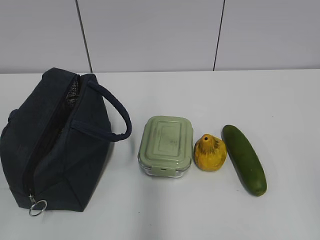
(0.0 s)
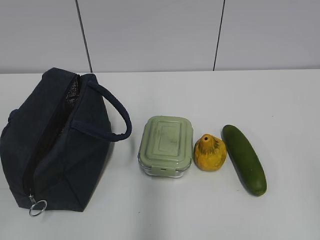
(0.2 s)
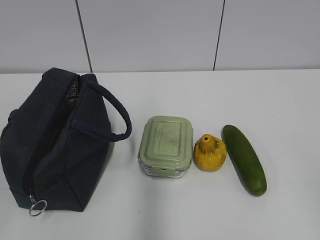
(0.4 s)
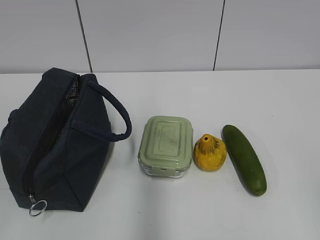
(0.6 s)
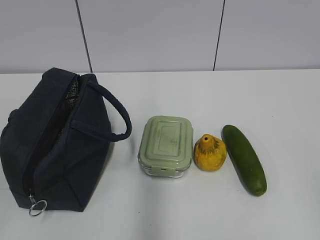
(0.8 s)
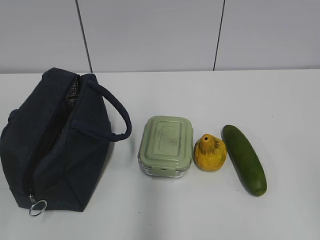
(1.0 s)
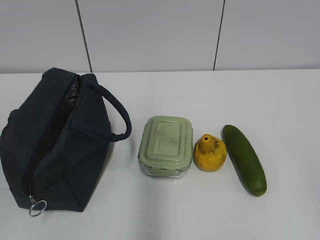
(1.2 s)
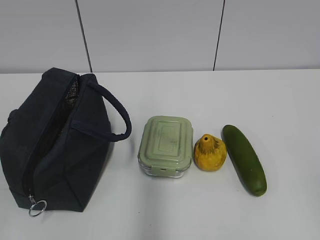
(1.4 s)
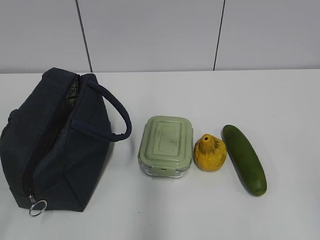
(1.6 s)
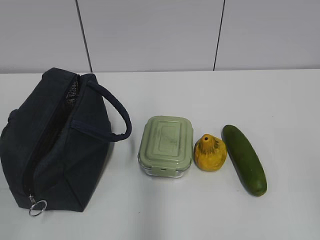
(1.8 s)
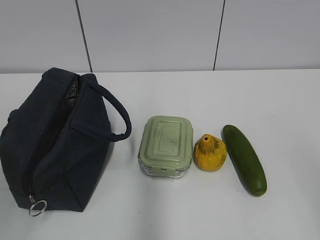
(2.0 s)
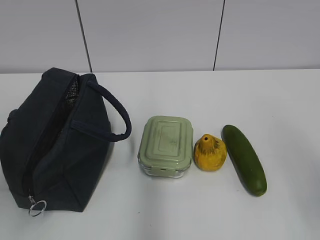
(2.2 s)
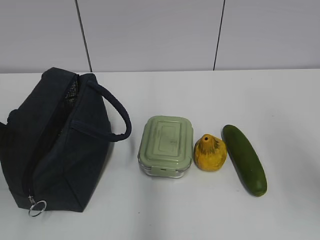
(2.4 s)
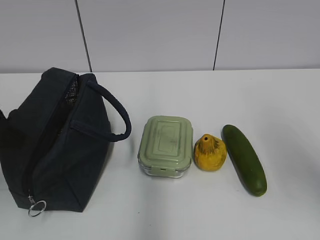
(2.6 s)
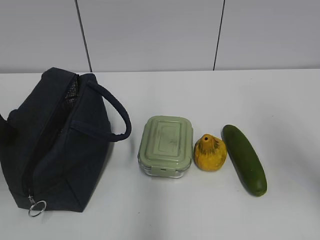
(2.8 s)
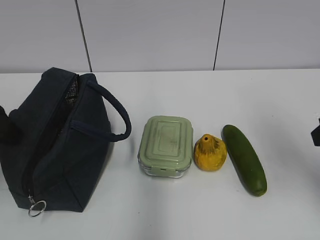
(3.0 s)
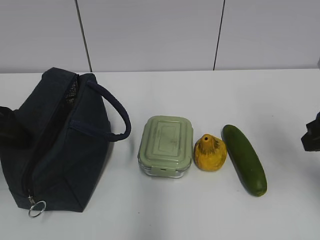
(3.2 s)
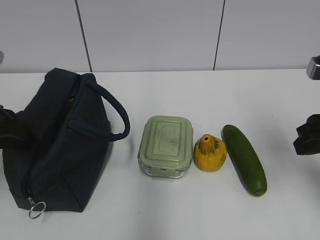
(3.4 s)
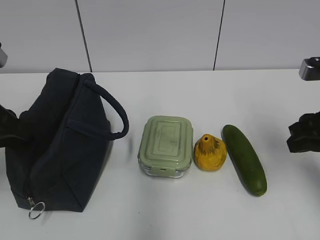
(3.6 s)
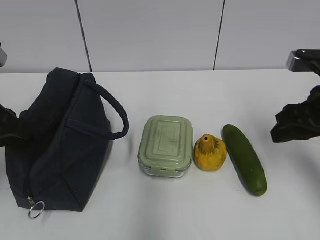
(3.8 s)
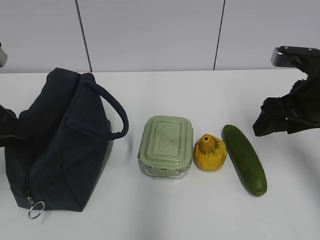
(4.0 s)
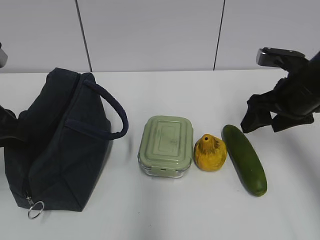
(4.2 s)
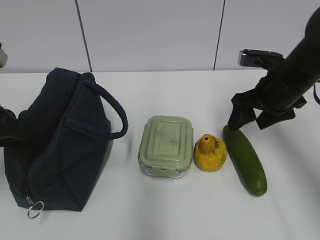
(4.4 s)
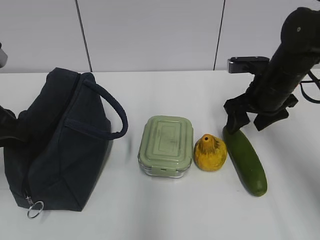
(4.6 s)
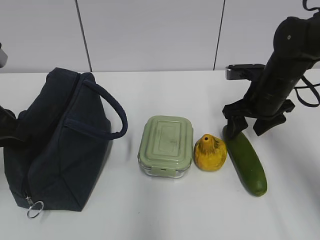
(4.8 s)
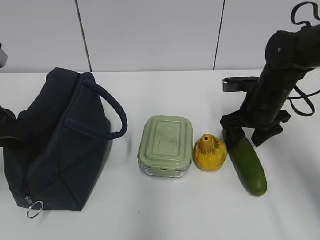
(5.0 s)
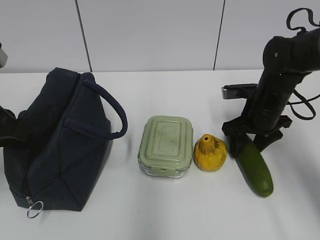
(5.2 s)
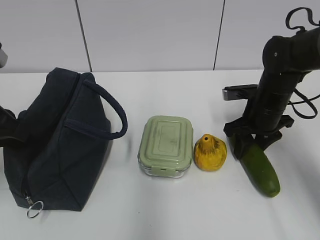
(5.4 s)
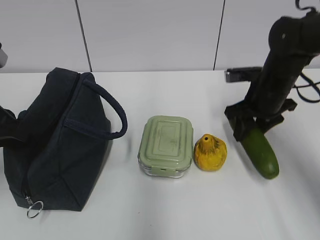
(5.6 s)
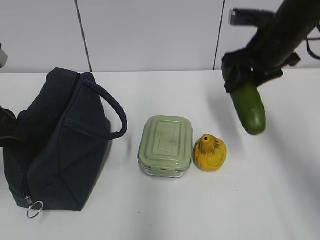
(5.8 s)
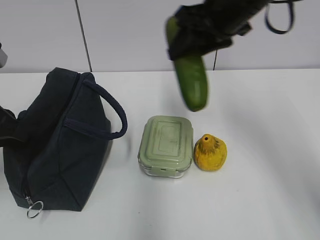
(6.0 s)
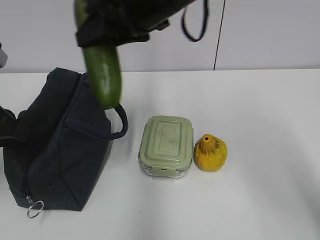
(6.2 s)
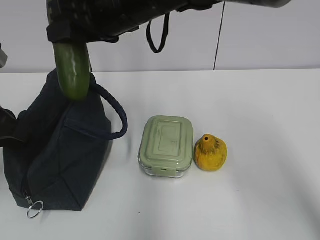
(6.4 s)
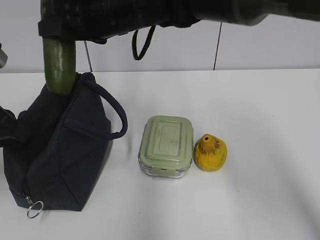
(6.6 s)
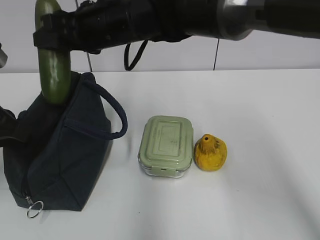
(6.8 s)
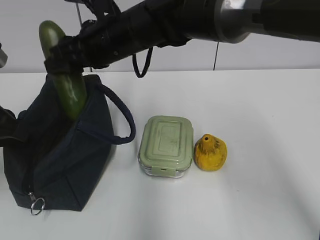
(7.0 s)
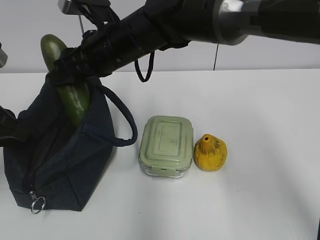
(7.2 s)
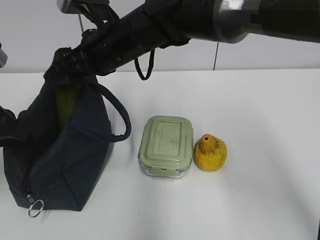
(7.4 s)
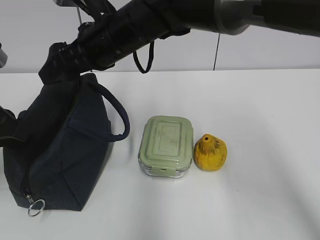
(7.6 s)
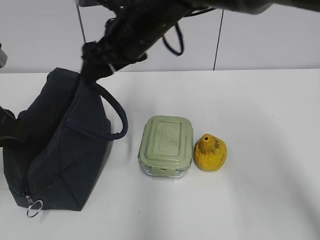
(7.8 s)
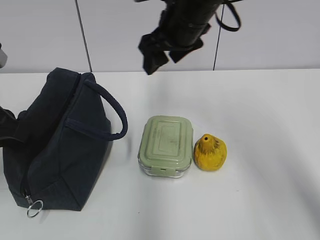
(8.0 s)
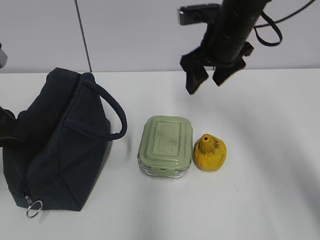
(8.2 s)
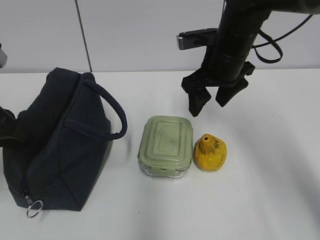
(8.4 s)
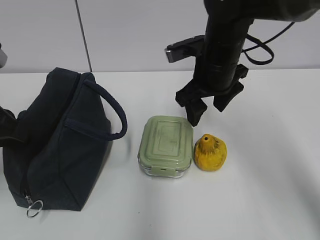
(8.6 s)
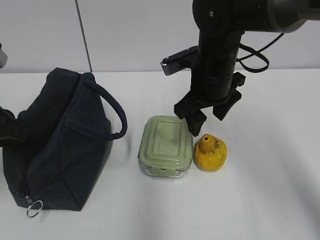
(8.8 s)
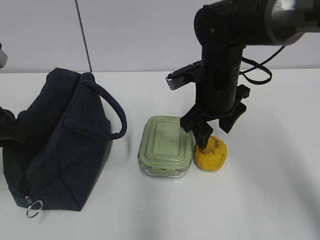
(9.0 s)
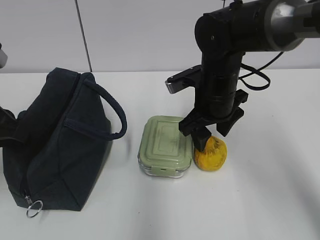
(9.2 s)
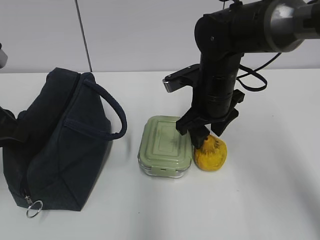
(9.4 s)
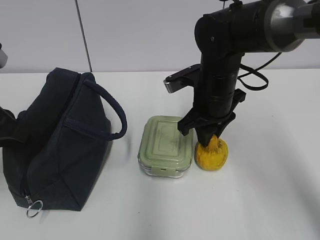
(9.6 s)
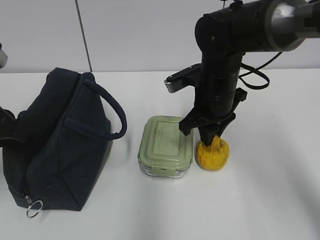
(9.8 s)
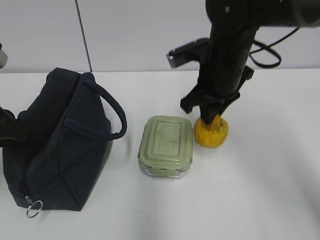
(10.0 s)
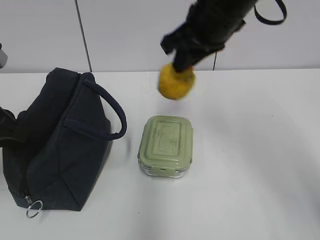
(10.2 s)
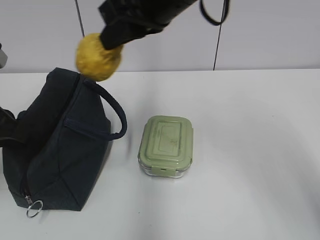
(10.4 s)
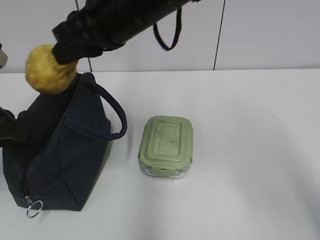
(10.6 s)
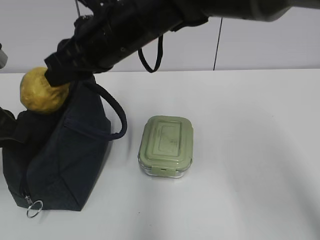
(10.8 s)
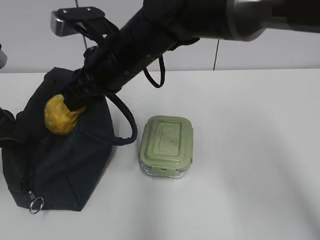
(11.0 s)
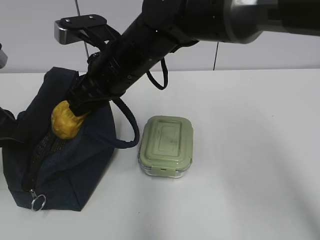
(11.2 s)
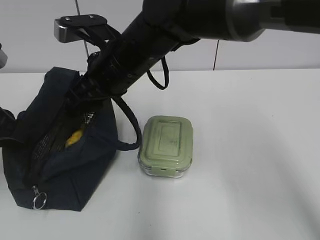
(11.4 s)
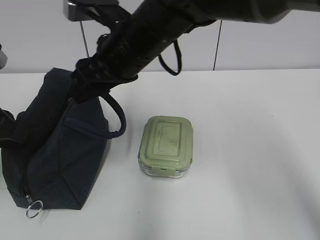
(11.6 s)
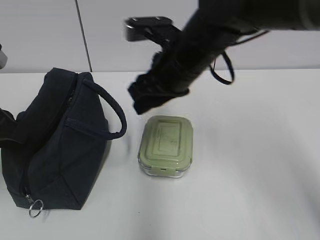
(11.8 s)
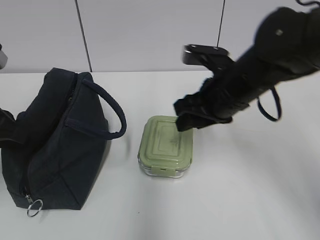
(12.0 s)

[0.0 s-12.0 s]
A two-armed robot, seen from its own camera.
Step, 0.0 to 5.2 s: Grab the cucumber with your right hand.
Step, 7.0 to 7.4 s: Place it into the bag with your right hand.
Step, 7.6 to 9.6 s: Grab the pear with your right hand.
Step, 9.8 to 11.4 s: Place it into the bag with your right hand.
1.6 to 3.0 s: Both grippers move forward, about 20 cm.
3.0 to 4.4 s: The left gripper closes its fingers. The right gripper moves forward and downward, some 15 cm, and opens up.
4.4 to 6.0 s: The right gripper travels upward and to the left by roughly 20 cm, and closes up.
6.0 to 7.6 s: The right gripper goes approximately 15 cm to the left and downward, and opens its fingers.
7.6 to 9.0 s: The right gripper heads to the right and downward, covering roughly 15 cm.
9.0 to 10.4 s: The right gripper is displaced upward and to the left by roughly 20 cm, and closes.
10.4 to 12.0 s: The right gripper shifts about 20 cm downward and to the right, and opens up.

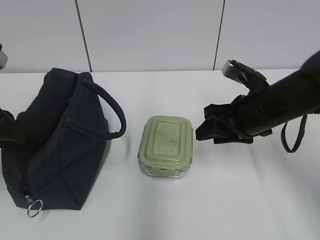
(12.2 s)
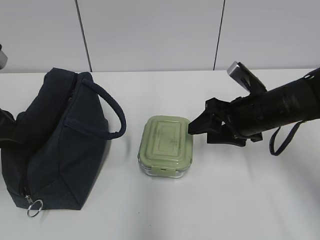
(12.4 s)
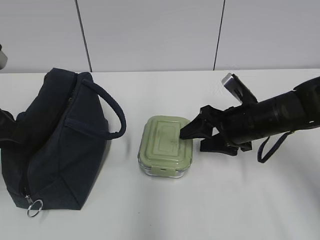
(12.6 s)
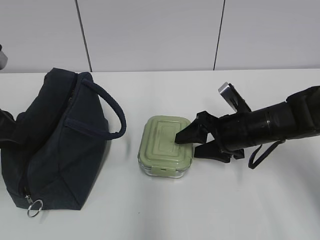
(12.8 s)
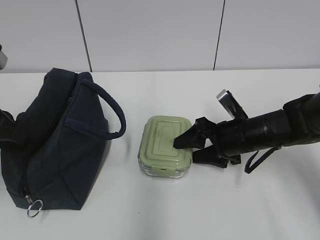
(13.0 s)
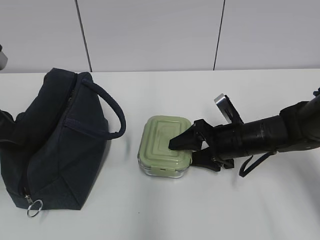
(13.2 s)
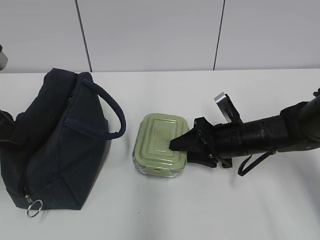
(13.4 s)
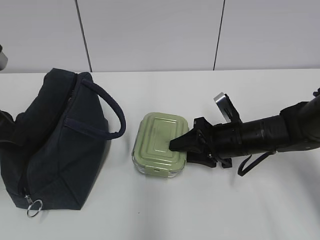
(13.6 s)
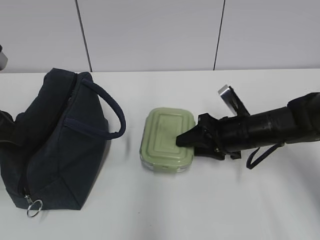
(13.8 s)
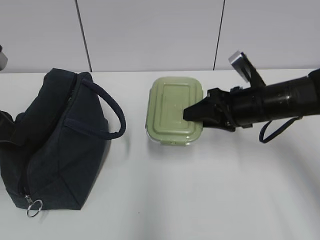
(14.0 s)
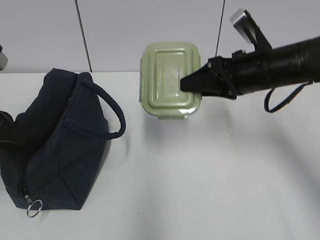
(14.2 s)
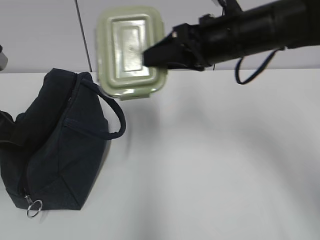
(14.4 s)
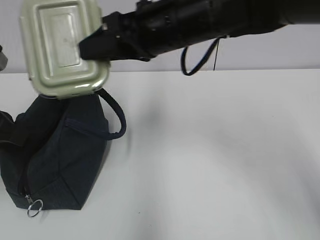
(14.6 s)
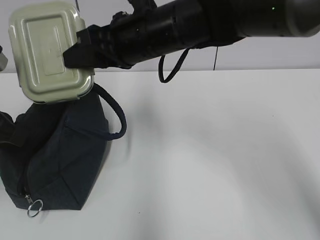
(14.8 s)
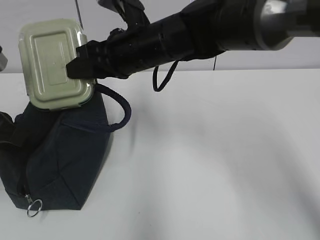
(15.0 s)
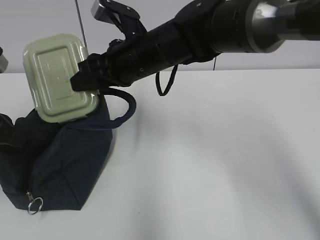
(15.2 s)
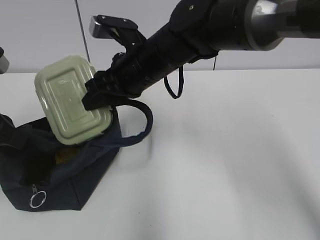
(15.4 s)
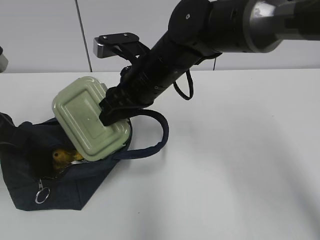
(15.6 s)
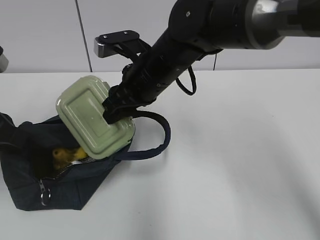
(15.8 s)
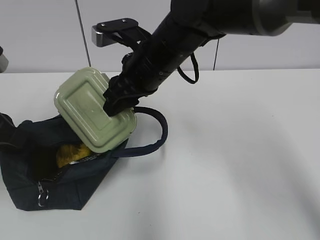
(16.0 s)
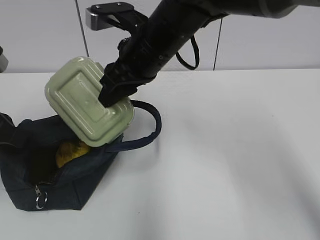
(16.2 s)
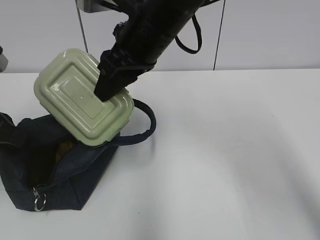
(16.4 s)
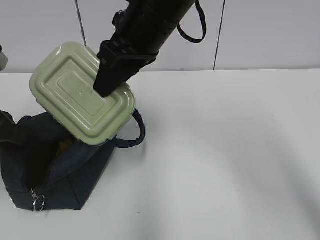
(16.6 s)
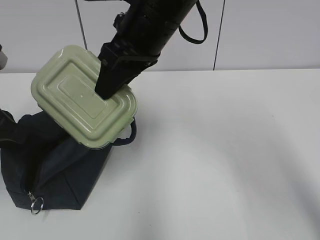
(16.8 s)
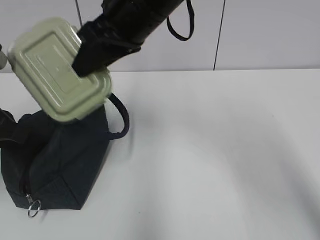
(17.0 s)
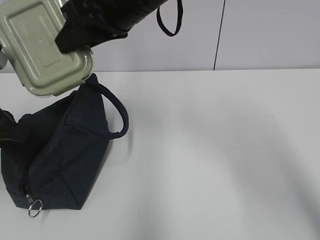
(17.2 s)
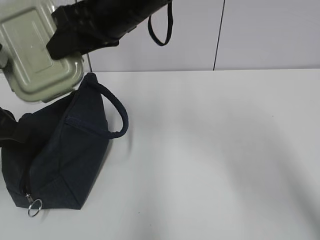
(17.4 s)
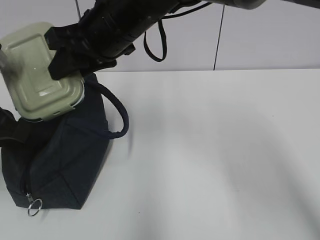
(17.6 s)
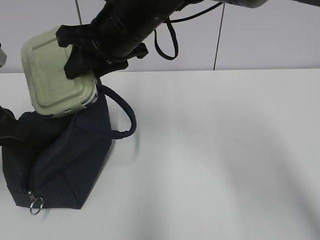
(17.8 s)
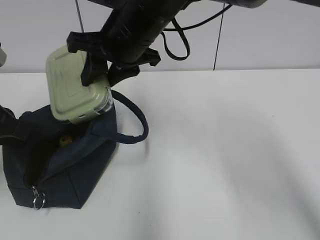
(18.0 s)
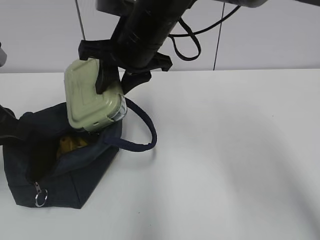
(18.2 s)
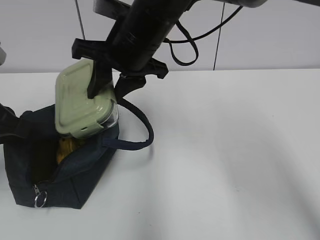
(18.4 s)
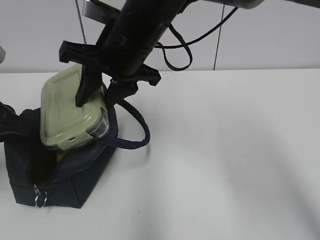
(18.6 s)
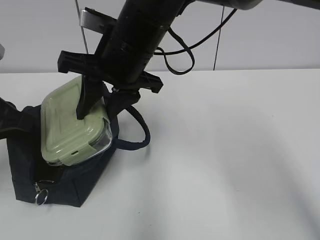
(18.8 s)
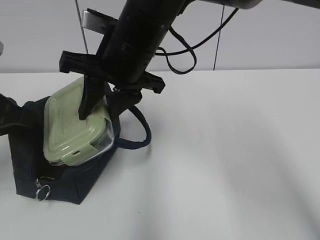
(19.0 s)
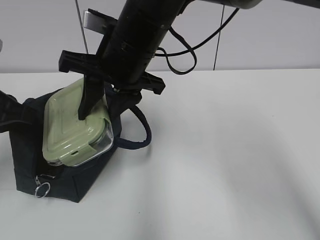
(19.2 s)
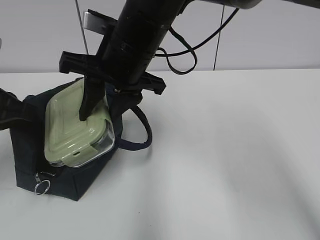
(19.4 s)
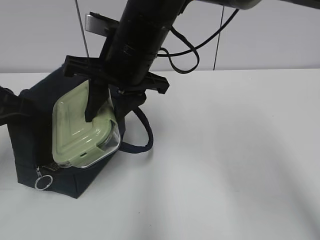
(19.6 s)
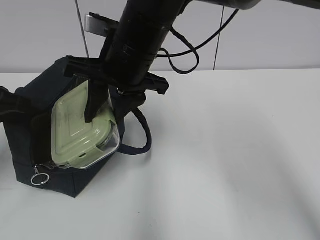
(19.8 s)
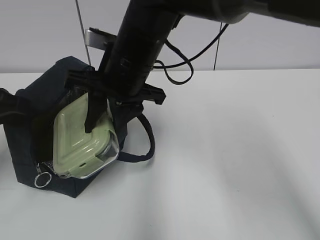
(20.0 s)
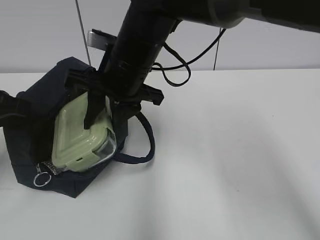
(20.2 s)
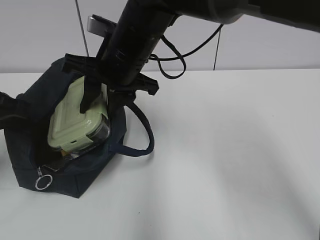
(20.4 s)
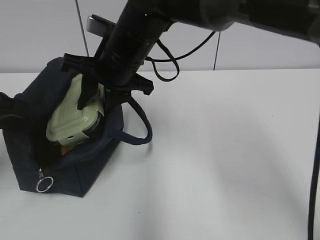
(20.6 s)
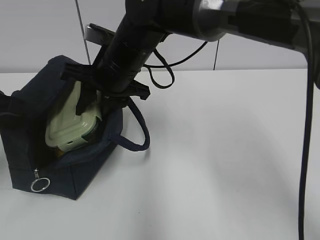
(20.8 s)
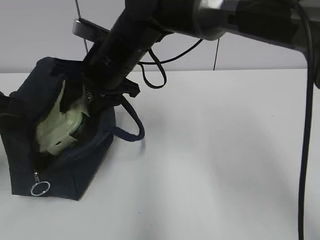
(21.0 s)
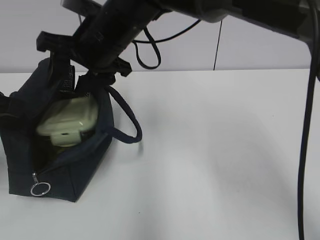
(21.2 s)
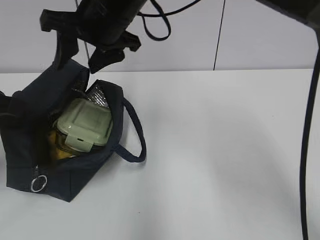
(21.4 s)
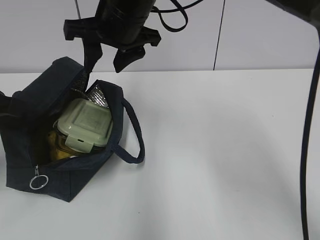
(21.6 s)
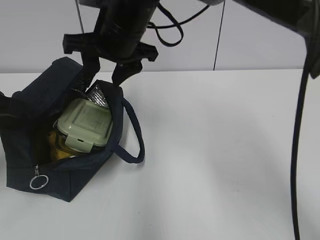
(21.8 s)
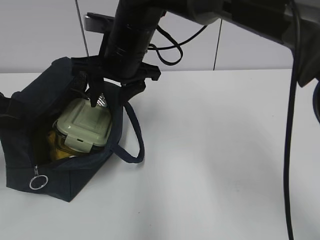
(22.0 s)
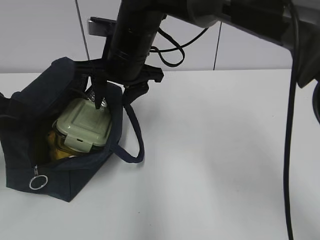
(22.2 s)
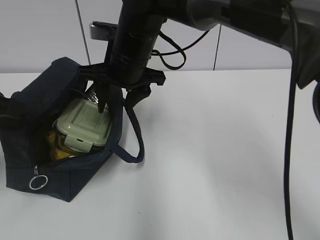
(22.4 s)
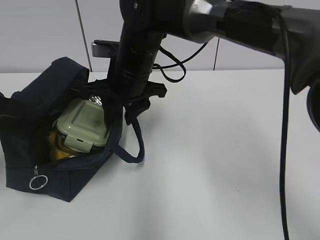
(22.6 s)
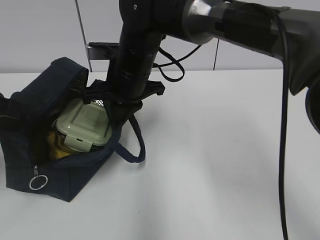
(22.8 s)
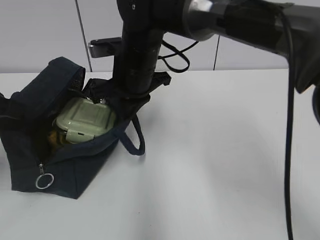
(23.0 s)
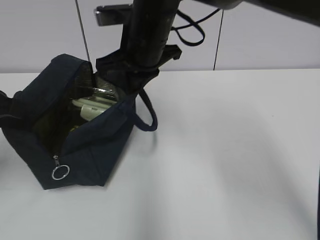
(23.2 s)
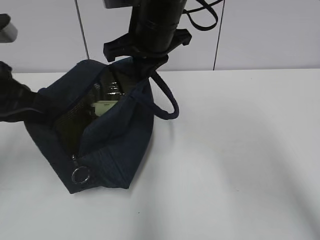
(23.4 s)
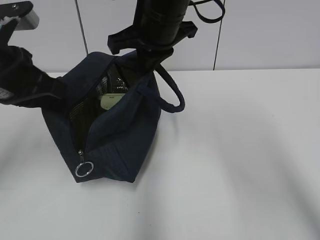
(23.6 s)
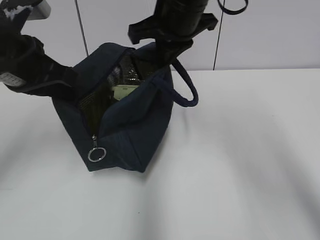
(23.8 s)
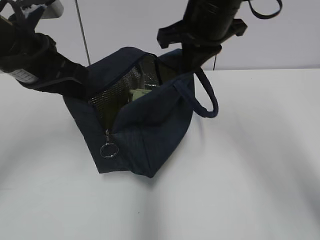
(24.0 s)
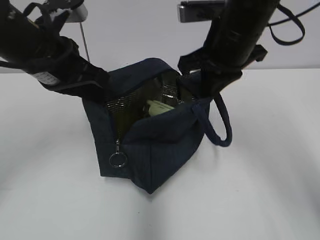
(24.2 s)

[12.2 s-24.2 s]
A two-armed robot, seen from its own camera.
Step, 12.2 to 13.4 s: Grab the lunch box with your right hand.
Step, 21.4 to 22.8 s: Grab the lunch bag with your right hand.
12.2 to 13.8 s: The right gripper is displaced downward by some 5 cm.
13.8 to 15.2 s: The right gripper heads to the left and upward, covering some 20 cm.
15.2 to 16.6 s: The right gripper travels upward by roughly 10 cm.
19.8 to 21.2 s: The right gripper changes place by about 5 cm.
21.2 to 22.6 s: The right gripper heads downward, covering roughly 5 cm, and closes.
22.6 to 24.2 s: The right gripper goes some 15 cm to the right, and closes up; the left gripper moves to the right and forward, approximately 10 cm.
